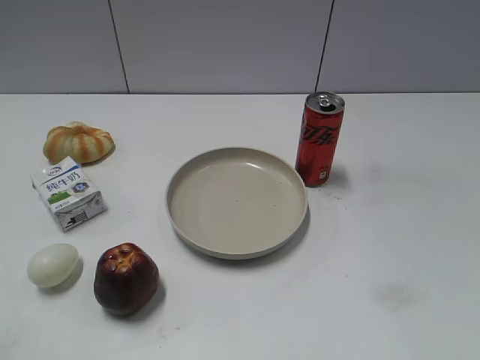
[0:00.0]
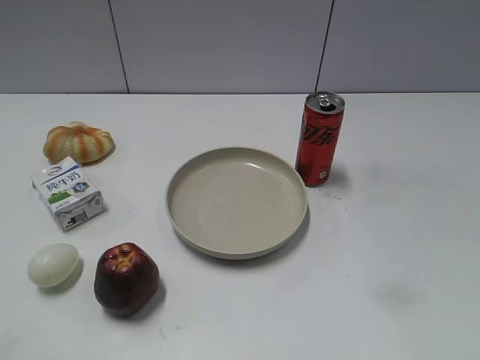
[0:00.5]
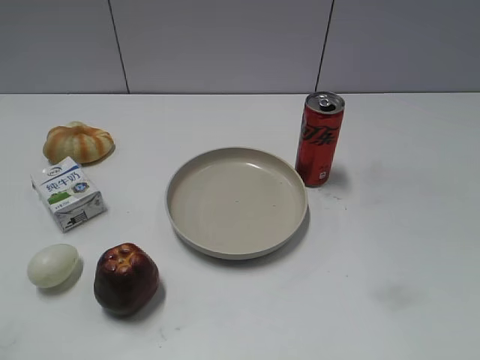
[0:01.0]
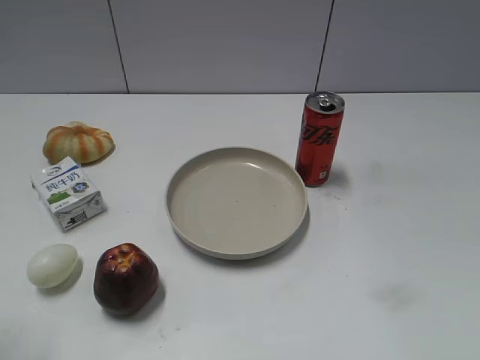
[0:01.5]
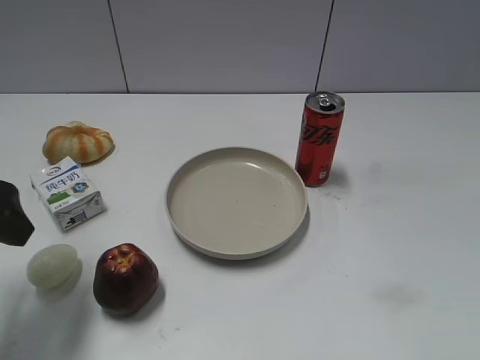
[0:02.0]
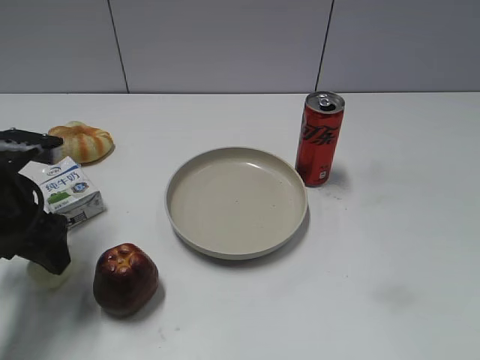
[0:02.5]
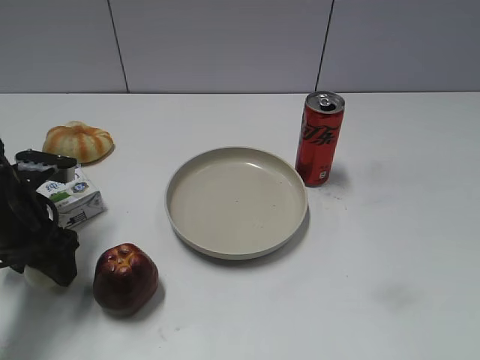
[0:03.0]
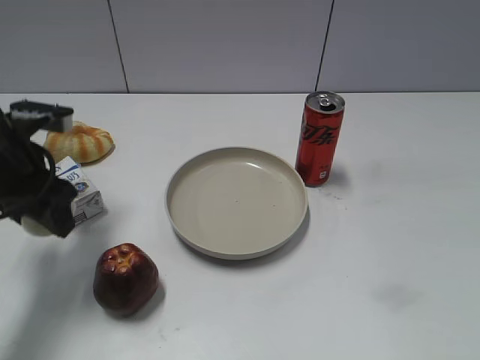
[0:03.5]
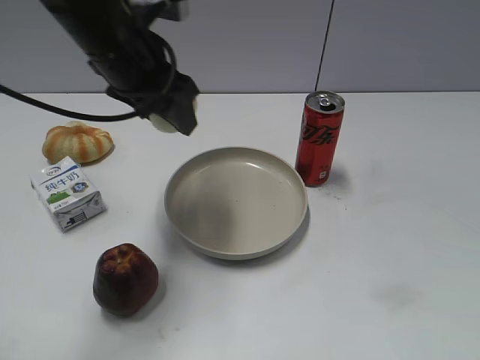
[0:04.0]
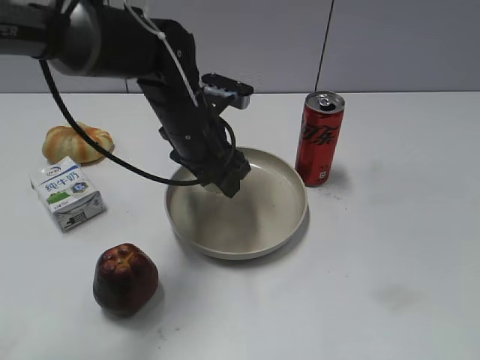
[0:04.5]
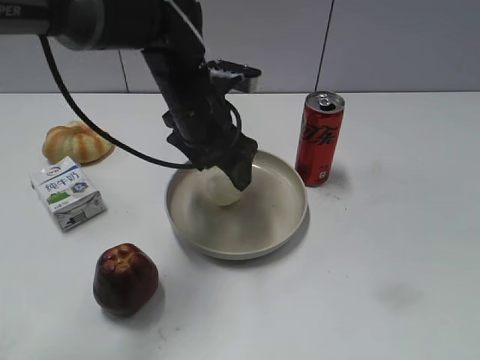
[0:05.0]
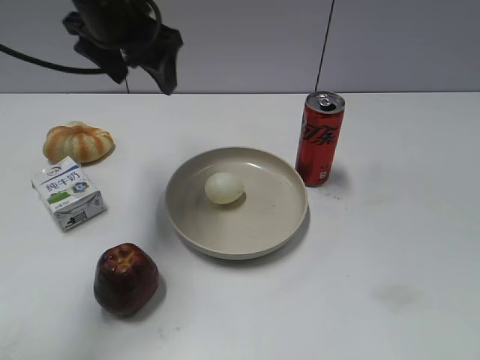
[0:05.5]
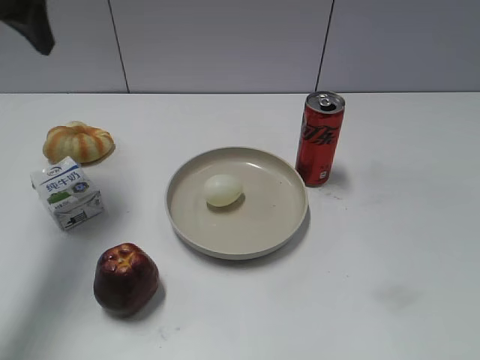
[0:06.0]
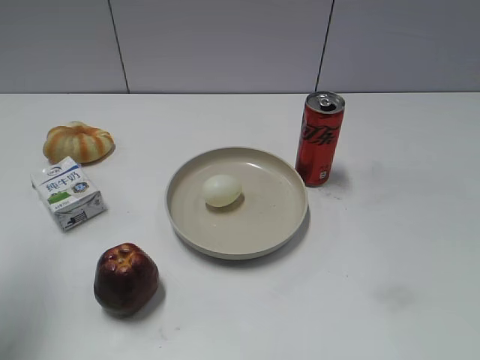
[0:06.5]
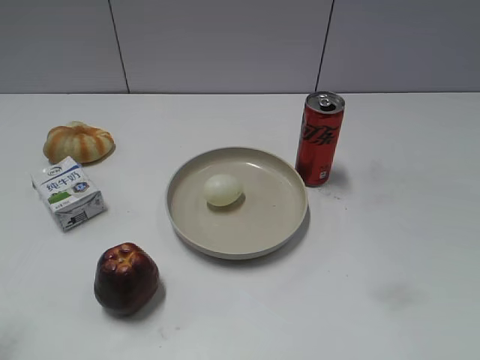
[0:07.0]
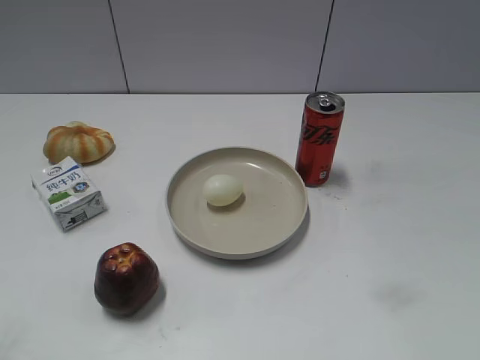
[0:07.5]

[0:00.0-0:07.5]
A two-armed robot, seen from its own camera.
Step, 0:01.0 to 0:03.0: Grasp the egg with left gripper.
Step, 0:03.5 to 0:05.0: Place the egg on the plate with left gripper.
0:02.0 to 0:04.0: The left gripper is displaced to the right and forward by some 20 cm, and closes its fingers.
0:04.0 to 0:05.5: The left gripper travels downward and back again, approximately 10 cm each way, and opens.
0:05.5 to 0:07.5: The left gripper heads backward and to the left, covering roughly 40 cm.
